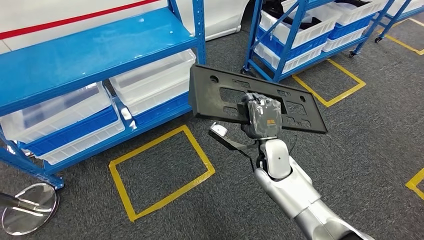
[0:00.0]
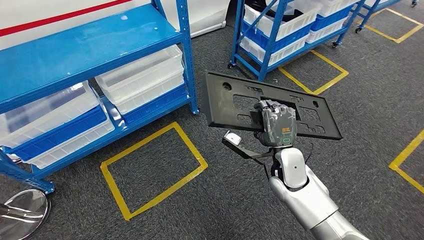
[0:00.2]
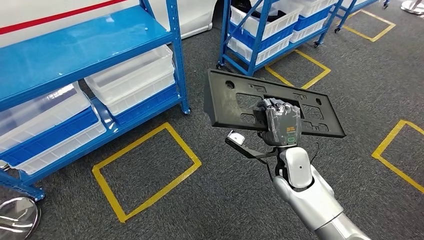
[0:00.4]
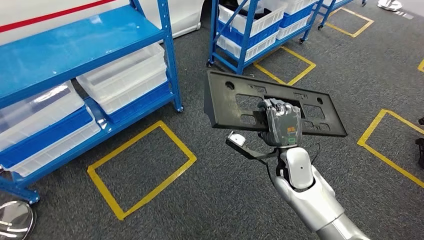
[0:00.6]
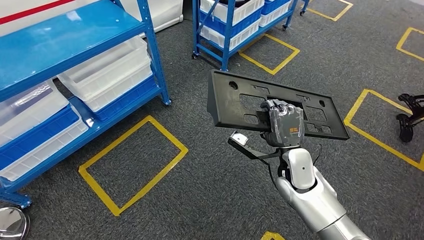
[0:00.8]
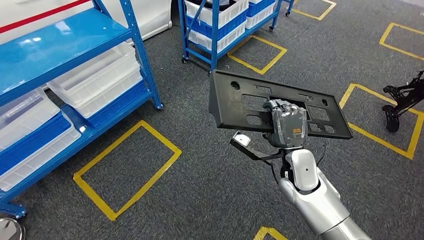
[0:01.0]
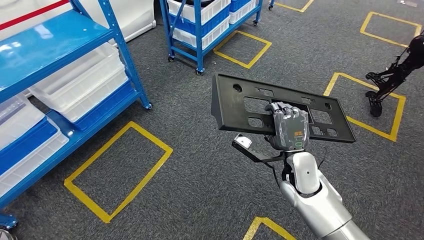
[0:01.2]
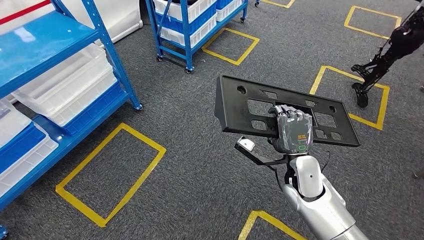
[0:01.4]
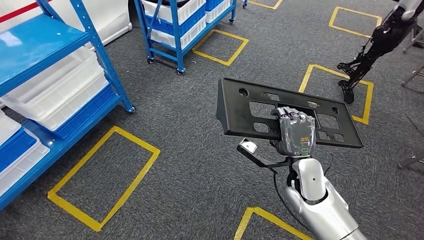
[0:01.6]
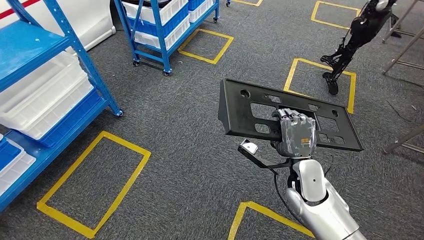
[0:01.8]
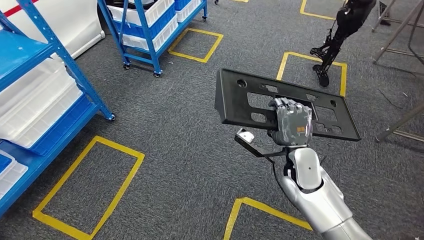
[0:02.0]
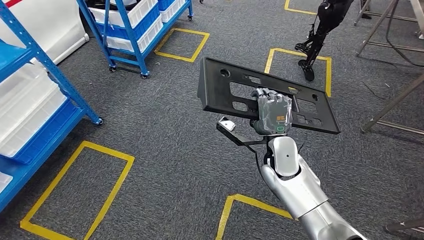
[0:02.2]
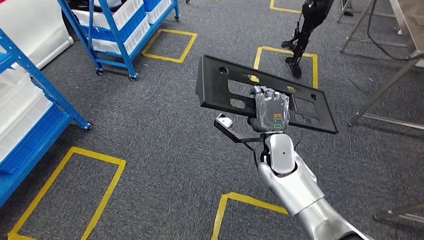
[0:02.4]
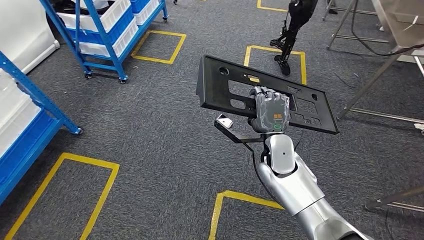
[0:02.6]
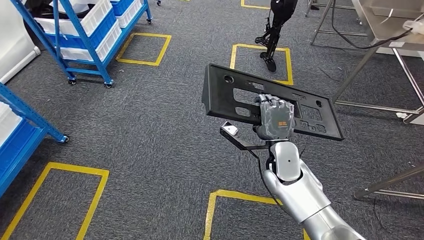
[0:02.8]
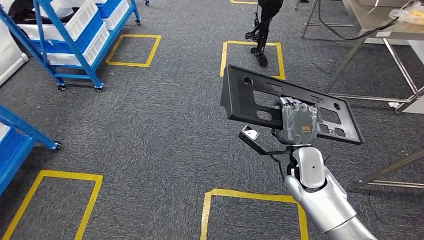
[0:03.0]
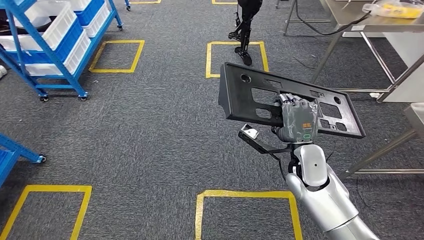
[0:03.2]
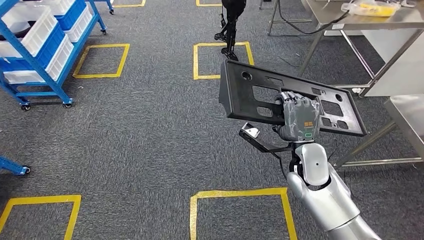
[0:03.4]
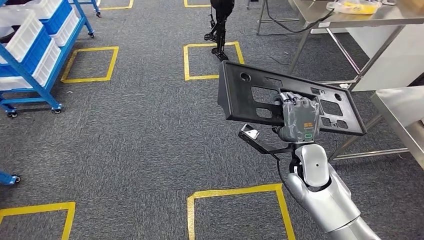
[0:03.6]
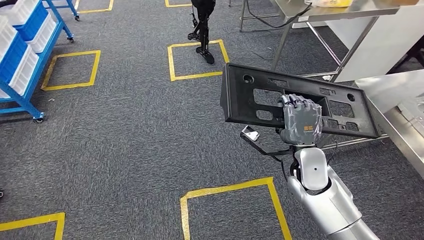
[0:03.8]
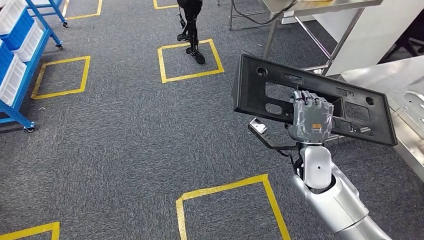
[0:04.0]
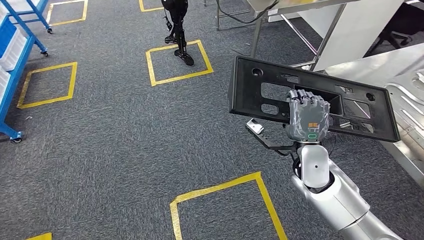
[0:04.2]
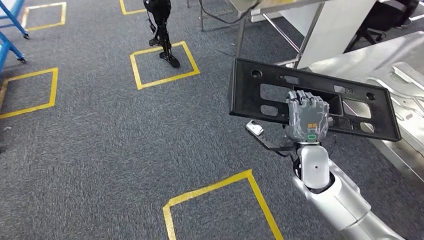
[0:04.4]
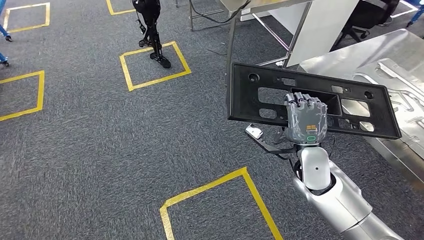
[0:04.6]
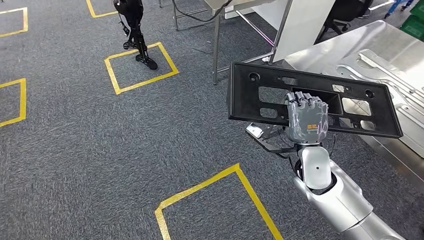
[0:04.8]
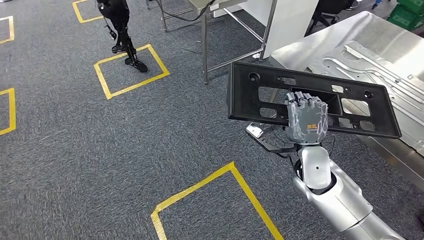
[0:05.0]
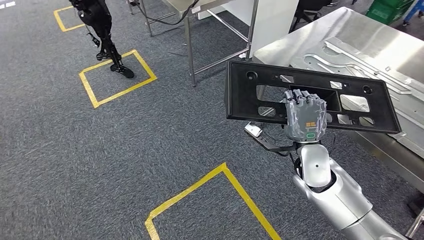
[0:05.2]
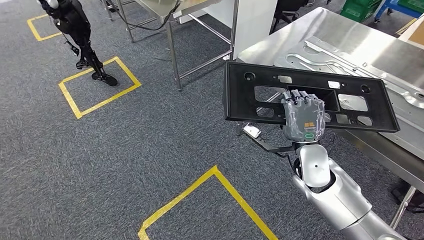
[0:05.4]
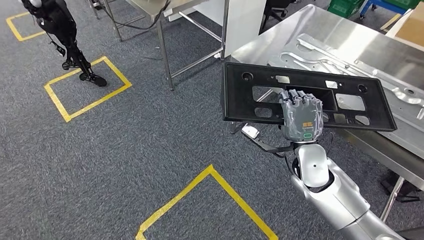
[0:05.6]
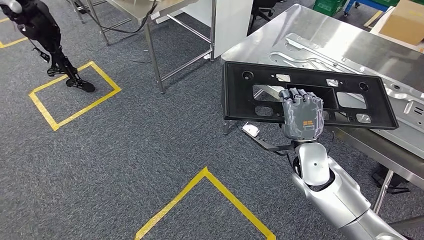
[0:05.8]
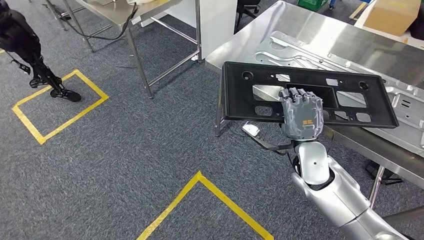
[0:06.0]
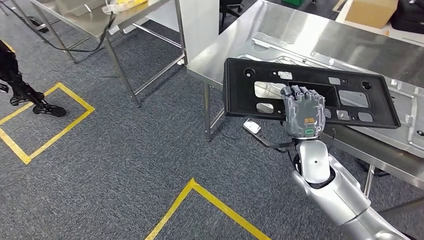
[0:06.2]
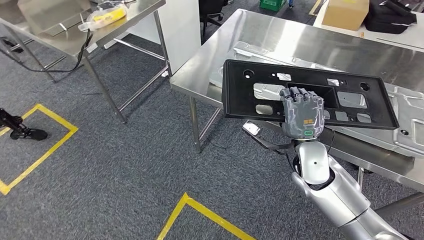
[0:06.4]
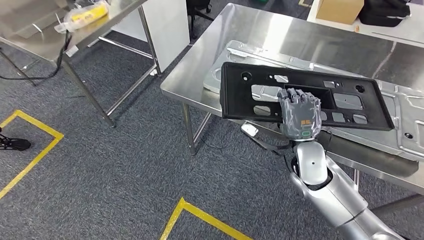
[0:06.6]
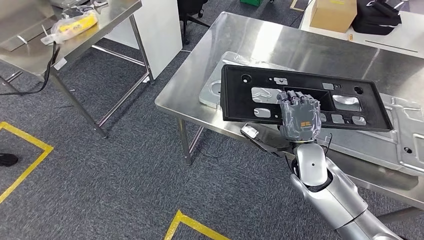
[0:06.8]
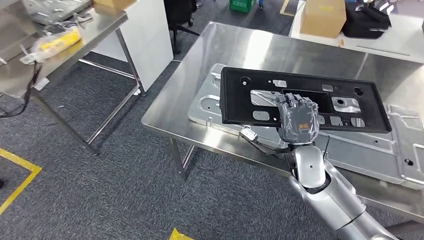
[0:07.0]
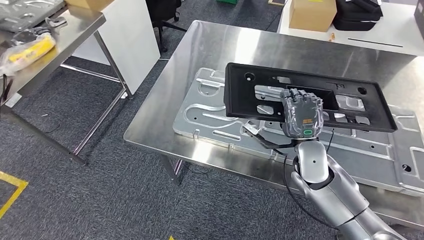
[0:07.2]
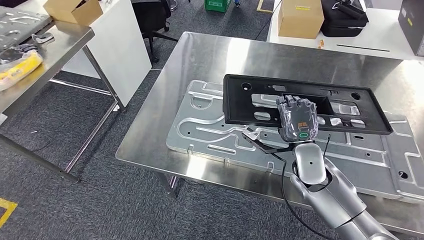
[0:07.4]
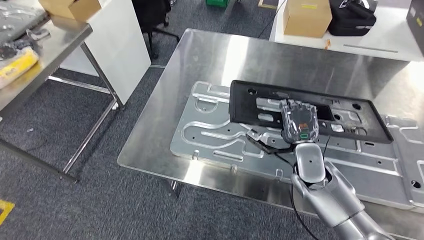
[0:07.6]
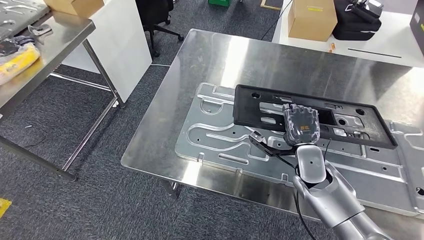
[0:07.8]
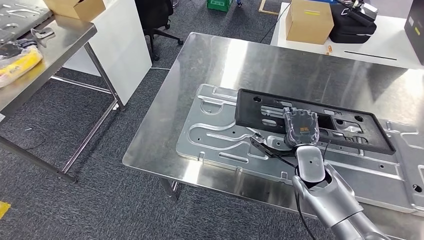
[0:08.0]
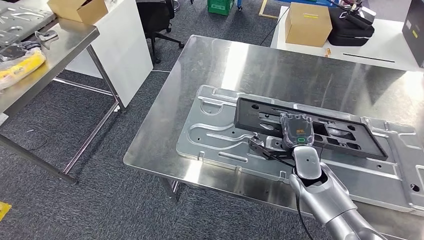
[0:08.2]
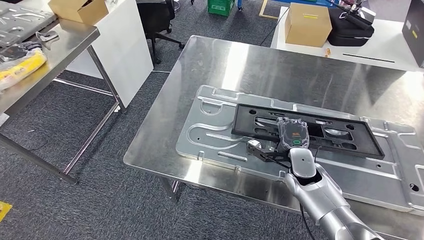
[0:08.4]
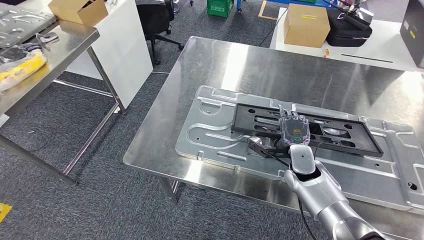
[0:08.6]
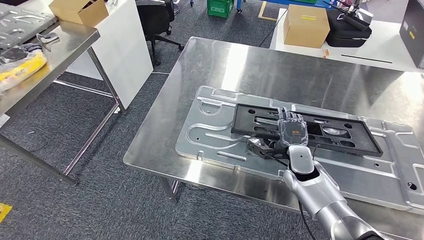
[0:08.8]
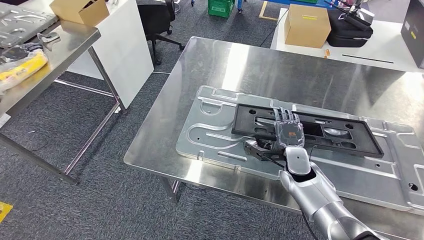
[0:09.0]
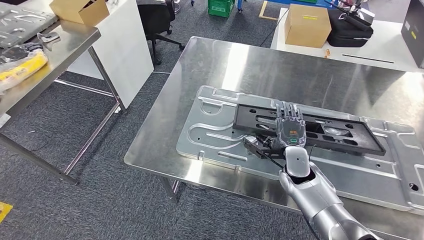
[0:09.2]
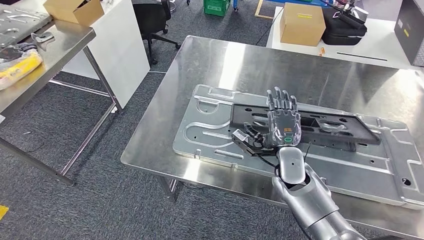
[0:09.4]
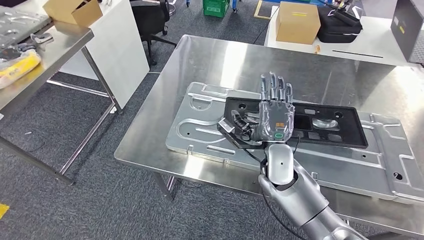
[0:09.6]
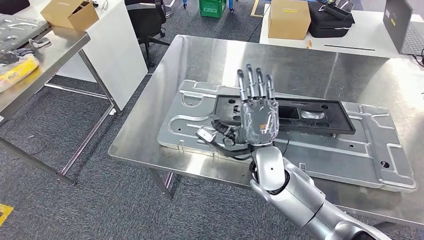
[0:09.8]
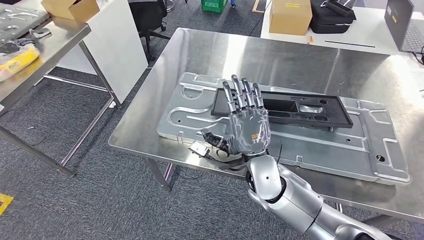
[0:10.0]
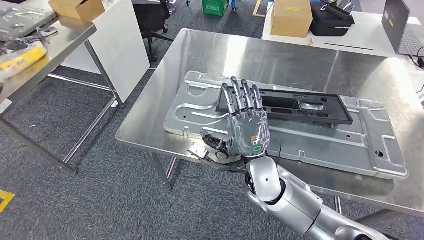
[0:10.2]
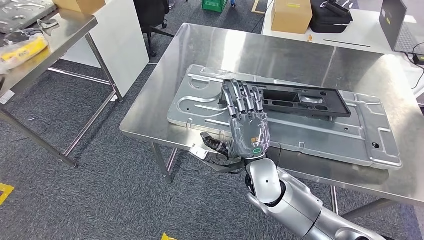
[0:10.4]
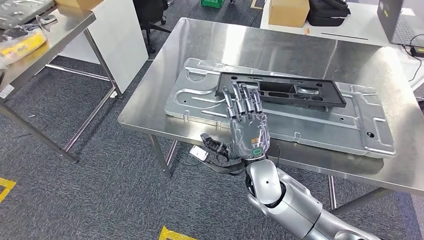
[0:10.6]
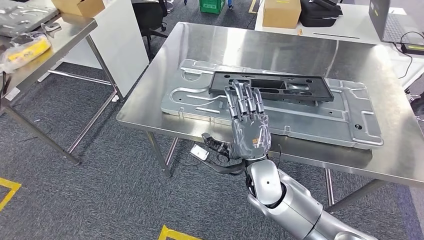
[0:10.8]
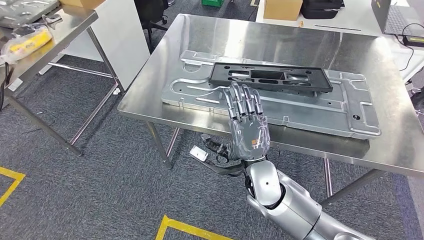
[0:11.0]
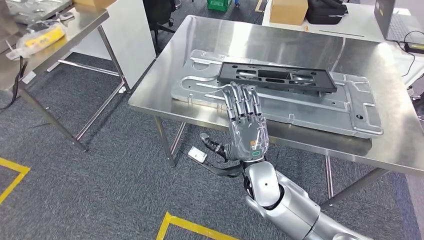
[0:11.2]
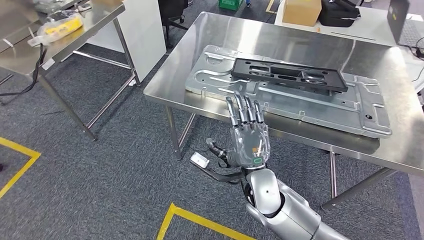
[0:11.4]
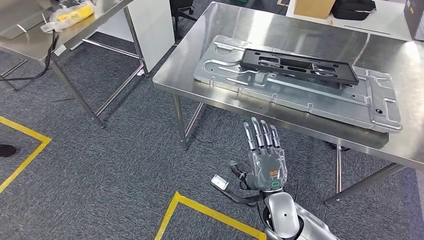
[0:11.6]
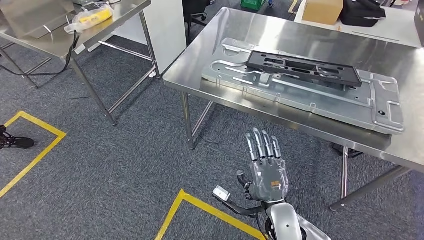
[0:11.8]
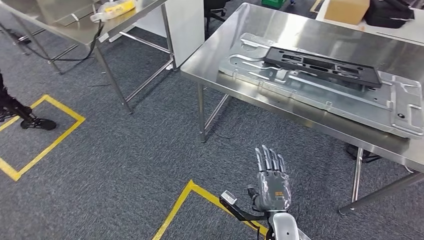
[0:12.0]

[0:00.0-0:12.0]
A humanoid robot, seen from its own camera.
Step, 0:00.2 to 0:06.8: Move the large material to the workbench.
Step, 0:07.8 to 0:10.4: Insert the large material into the corresponding slot on the workbench.

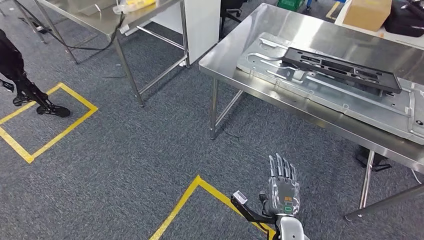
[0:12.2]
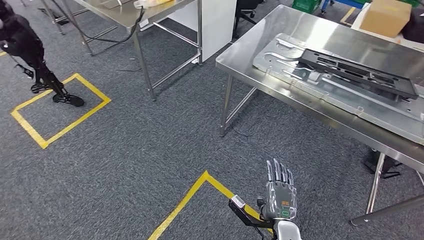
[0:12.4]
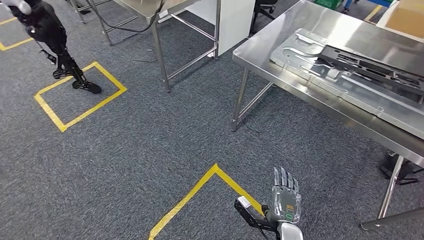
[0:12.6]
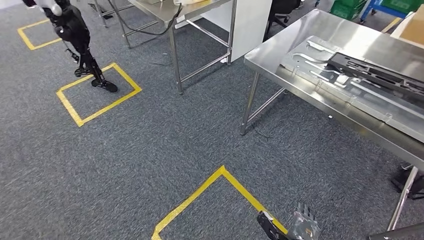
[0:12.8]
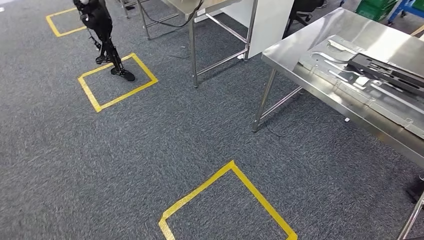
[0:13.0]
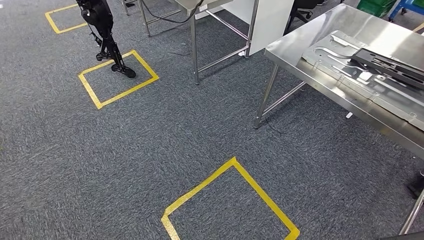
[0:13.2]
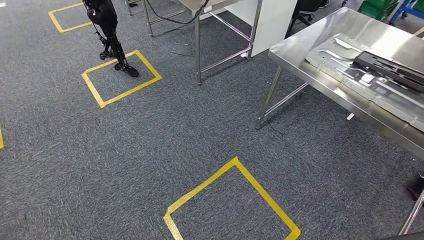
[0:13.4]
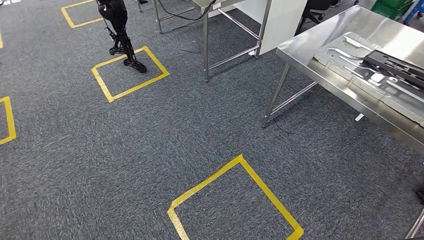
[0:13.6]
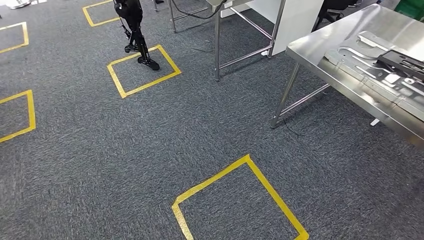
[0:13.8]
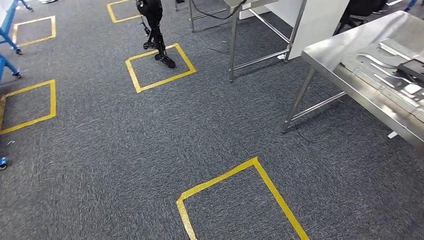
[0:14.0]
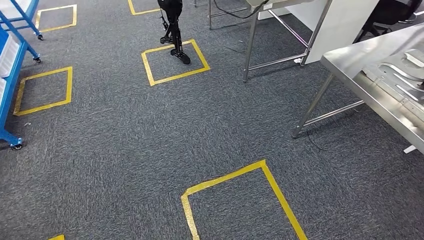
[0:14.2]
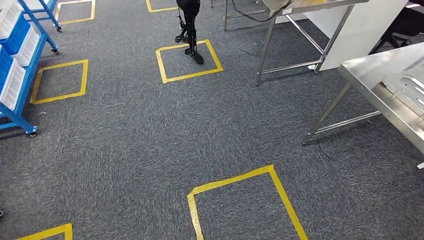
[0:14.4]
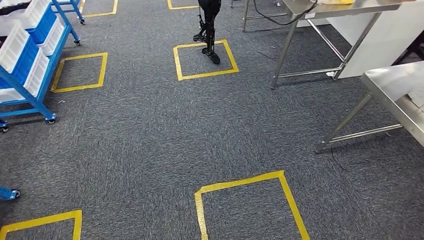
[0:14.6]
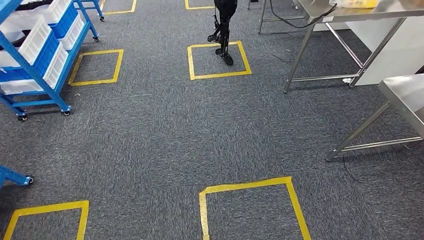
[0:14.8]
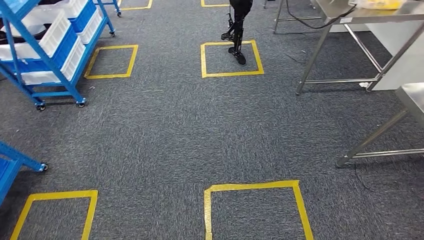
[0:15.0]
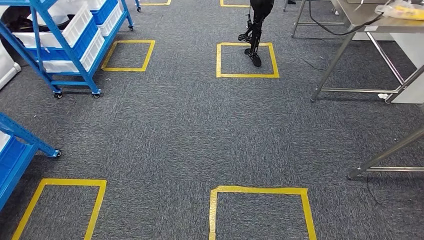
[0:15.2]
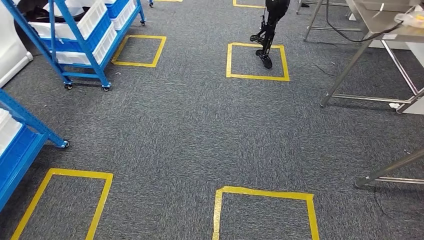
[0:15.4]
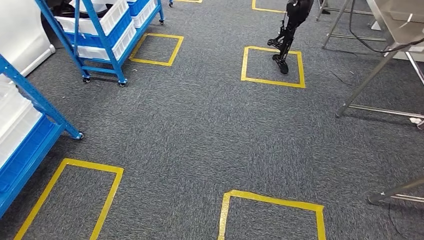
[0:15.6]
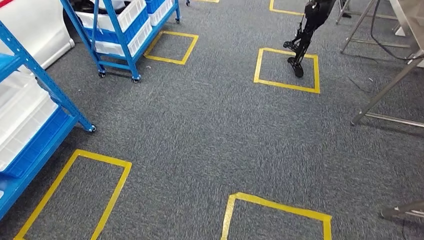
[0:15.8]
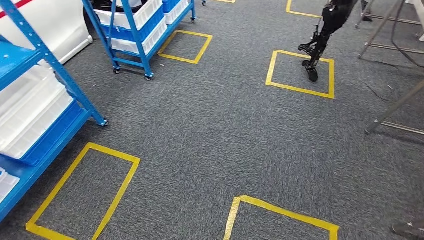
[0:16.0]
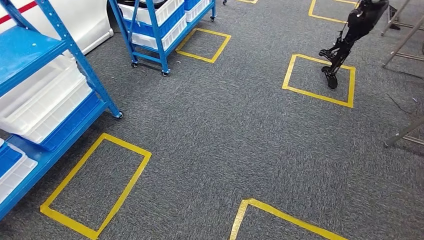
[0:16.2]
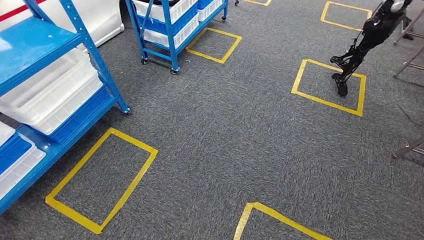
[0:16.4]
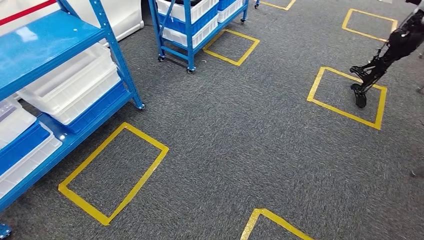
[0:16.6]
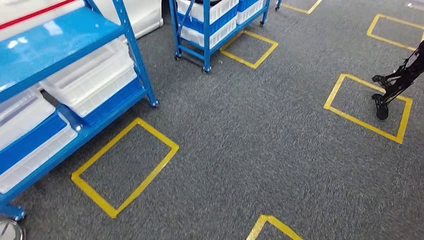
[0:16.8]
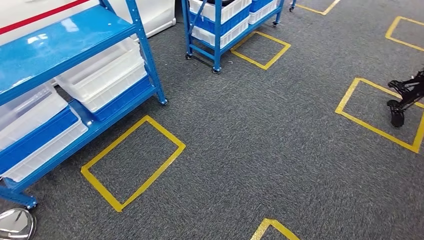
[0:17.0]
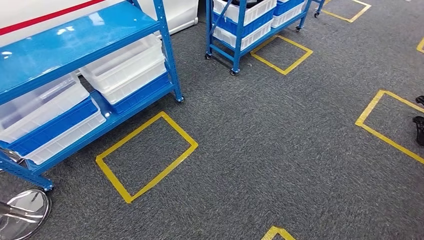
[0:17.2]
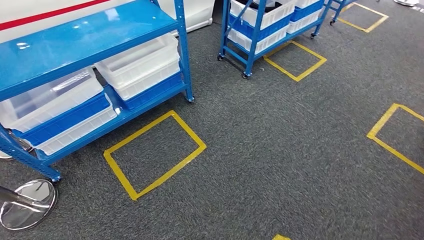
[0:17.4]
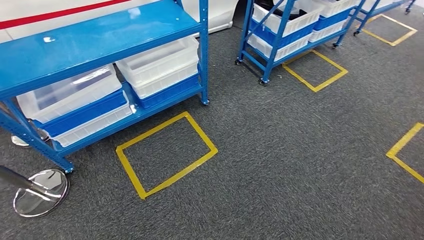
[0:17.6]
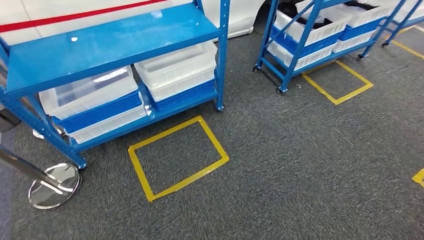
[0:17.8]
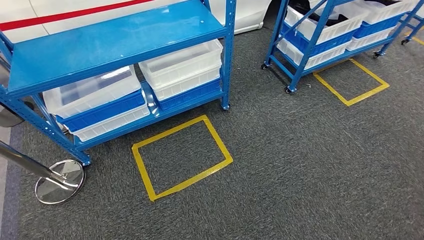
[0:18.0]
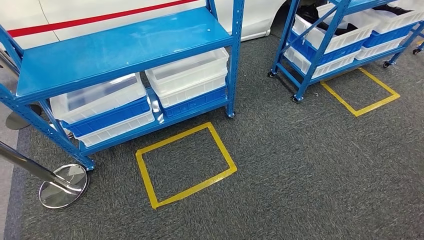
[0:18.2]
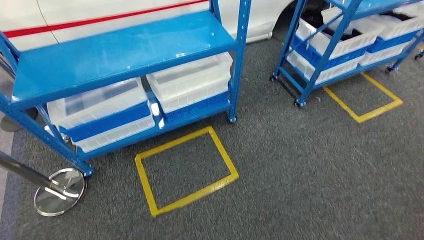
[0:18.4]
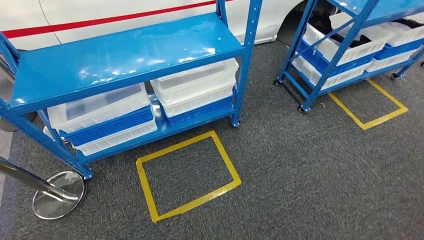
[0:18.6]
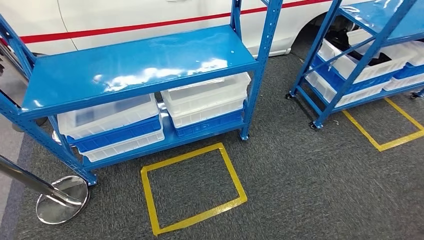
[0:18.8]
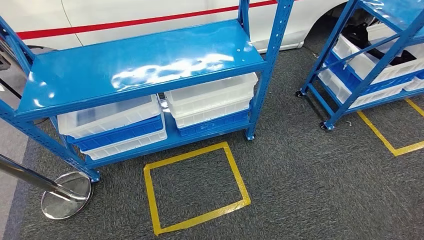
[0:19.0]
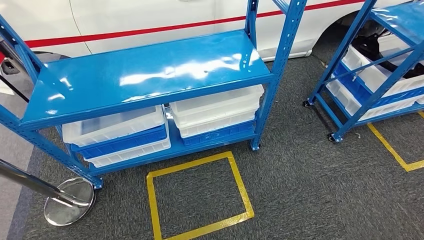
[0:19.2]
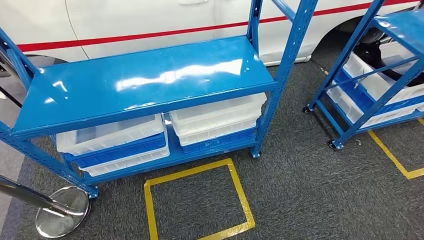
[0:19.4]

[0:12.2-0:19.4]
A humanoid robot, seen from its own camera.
Step, 0:12.2 to 0:19.2: Move to the initial position of the shelf.
